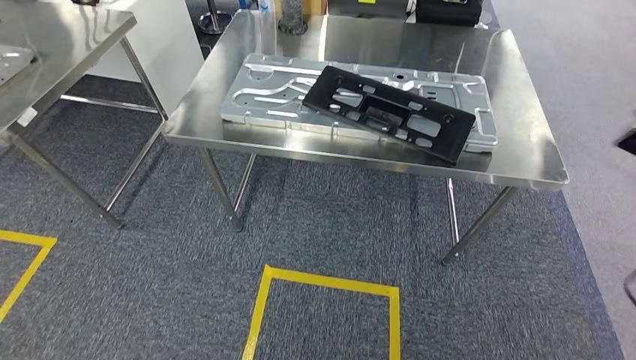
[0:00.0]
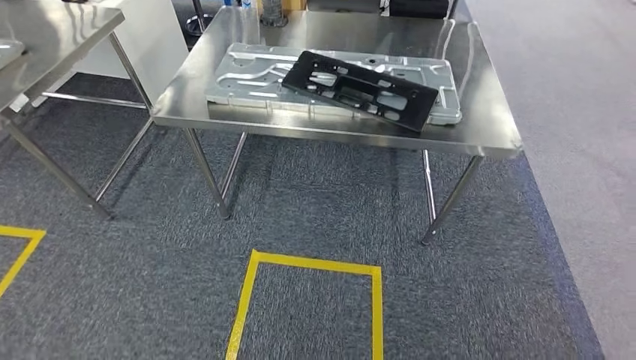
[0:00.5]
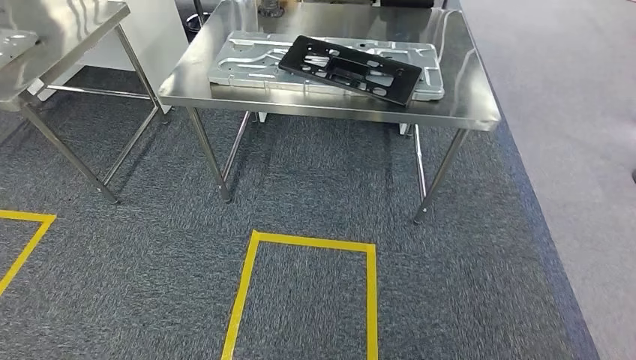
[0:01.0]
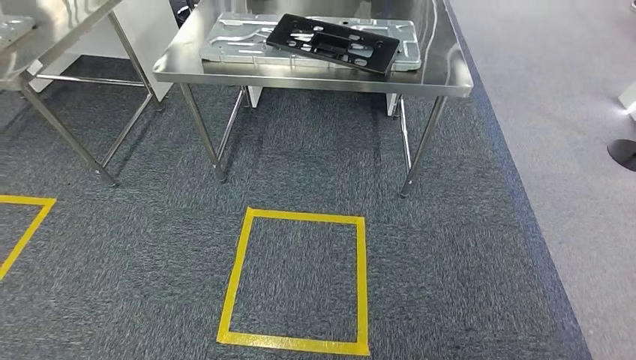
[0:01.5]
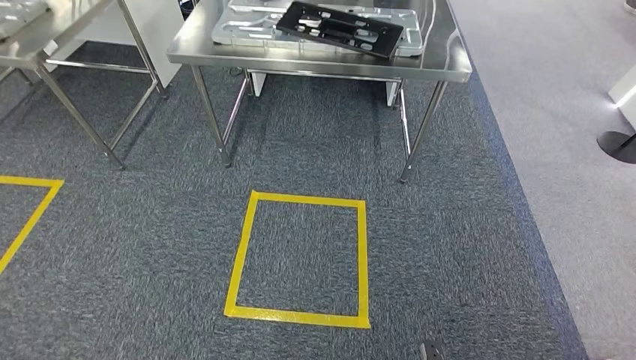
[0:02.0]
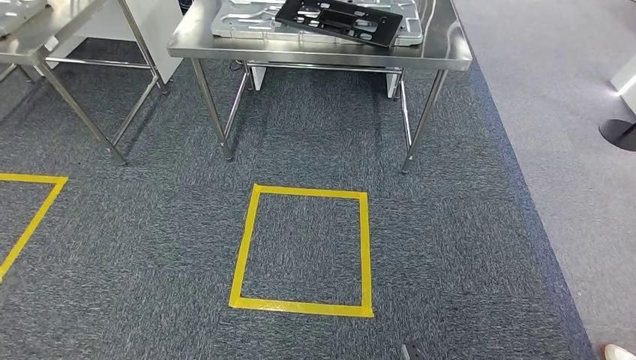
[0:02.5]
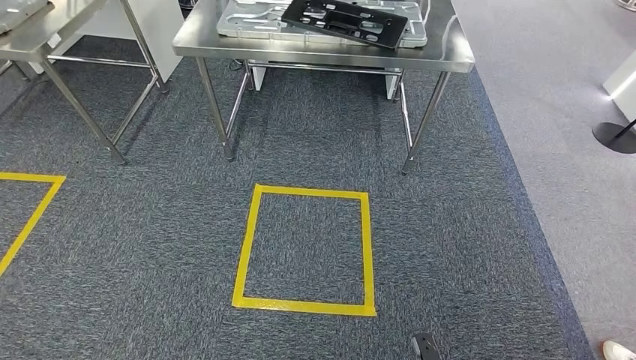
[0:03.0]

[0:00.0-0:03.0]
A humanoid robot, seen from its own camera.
Step, 0:01.5 to 0:03.0: Return to the initial position at the shelf.

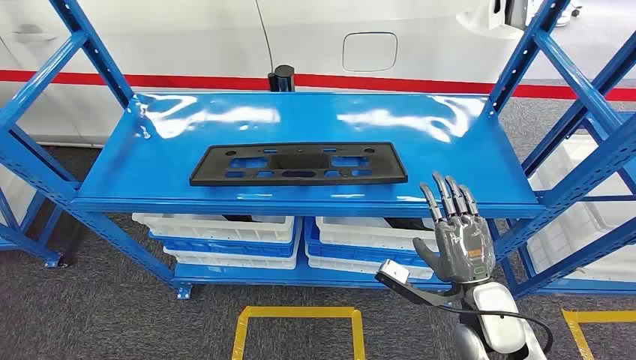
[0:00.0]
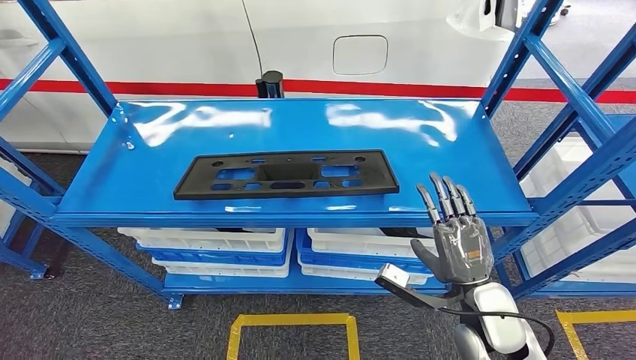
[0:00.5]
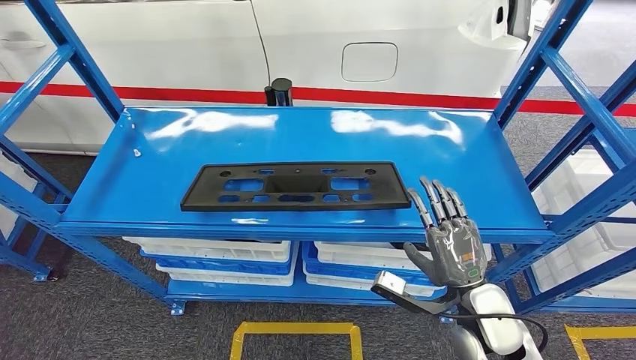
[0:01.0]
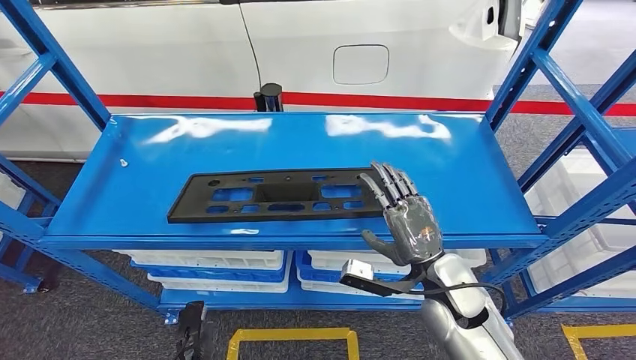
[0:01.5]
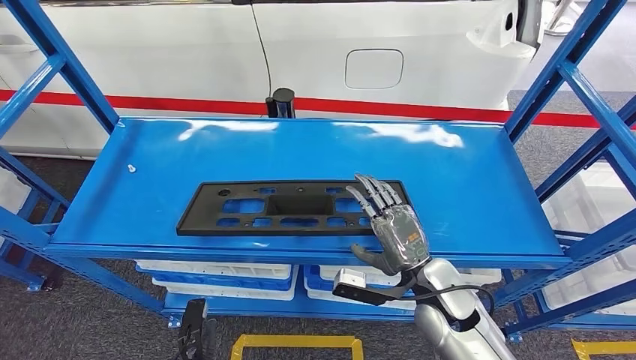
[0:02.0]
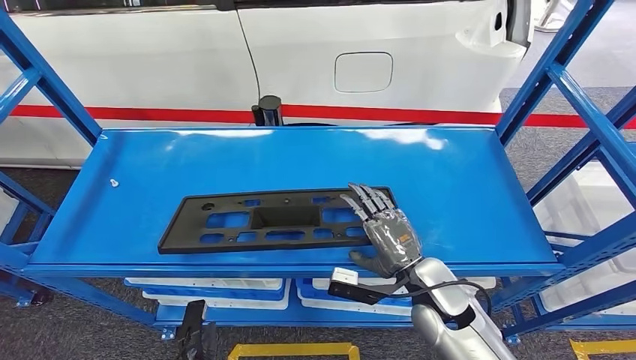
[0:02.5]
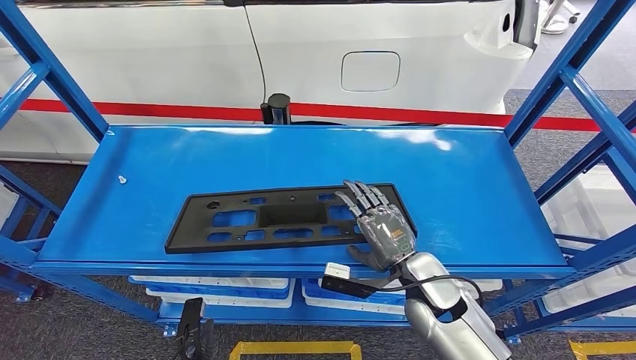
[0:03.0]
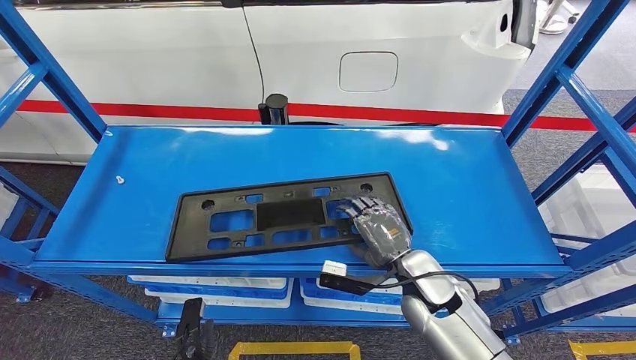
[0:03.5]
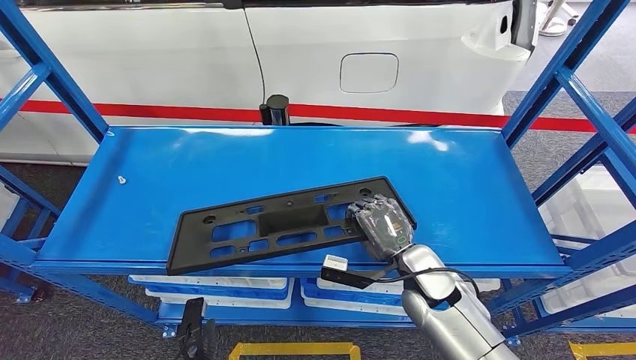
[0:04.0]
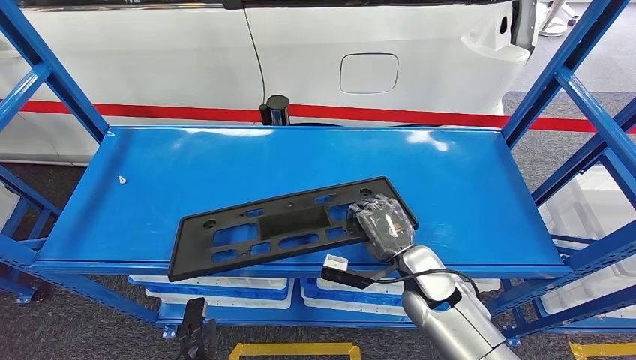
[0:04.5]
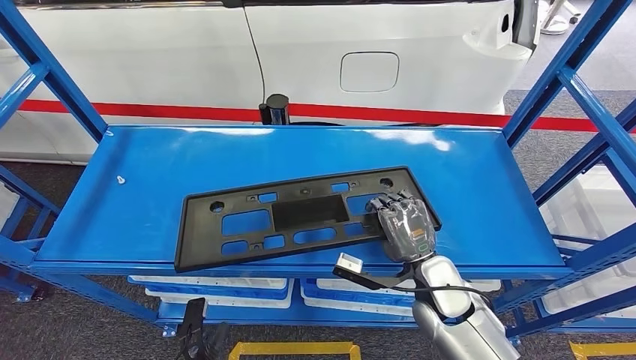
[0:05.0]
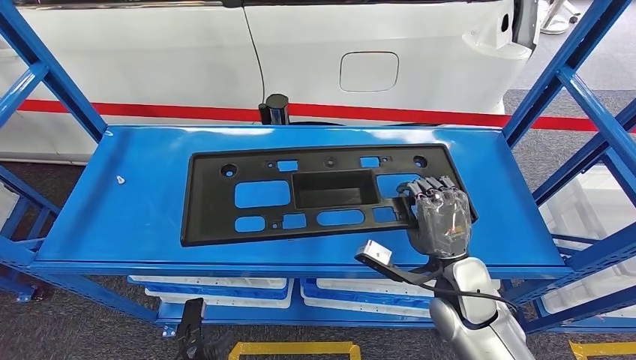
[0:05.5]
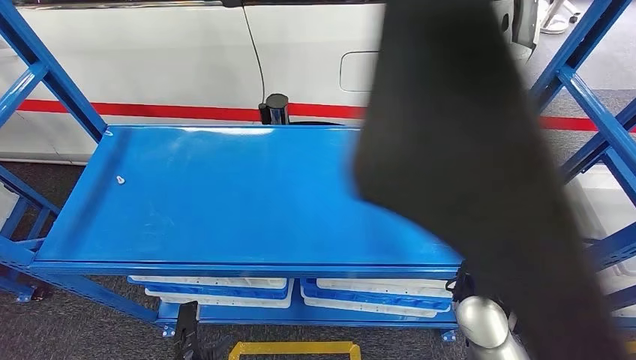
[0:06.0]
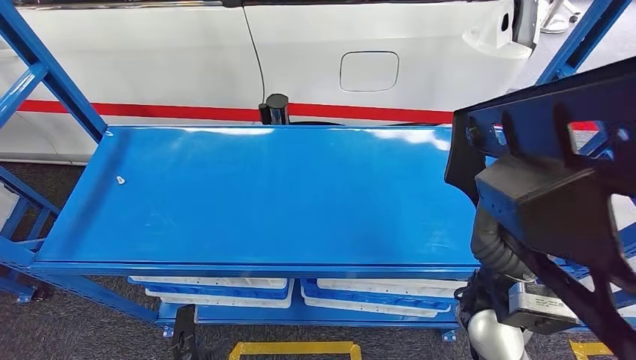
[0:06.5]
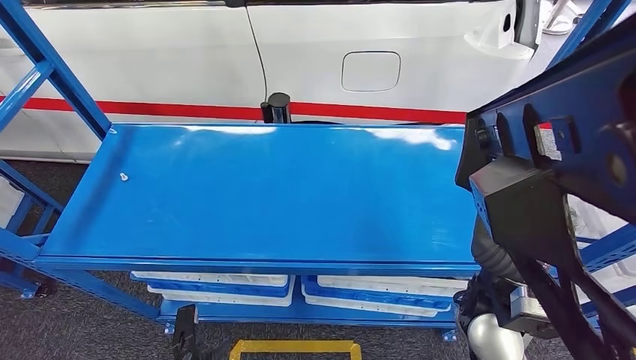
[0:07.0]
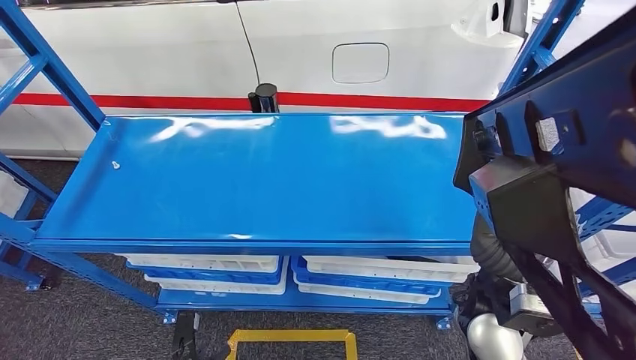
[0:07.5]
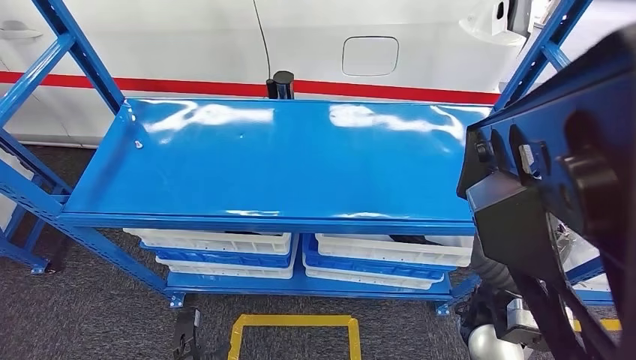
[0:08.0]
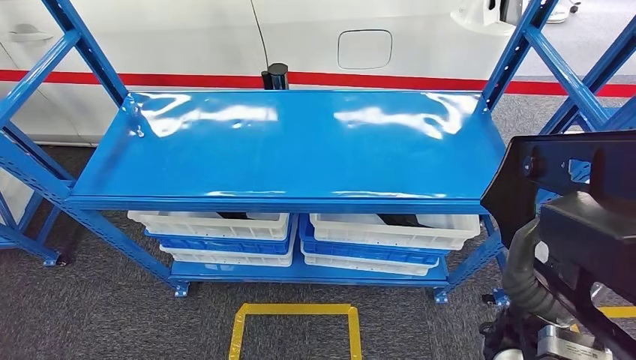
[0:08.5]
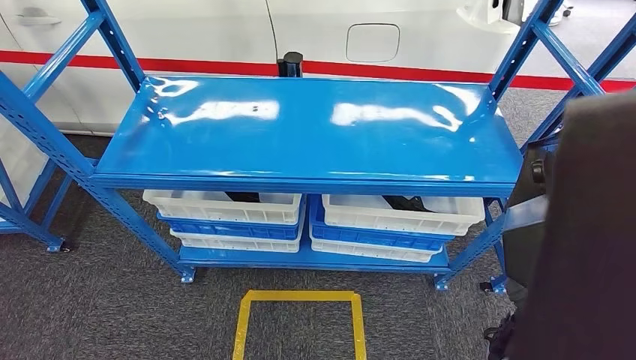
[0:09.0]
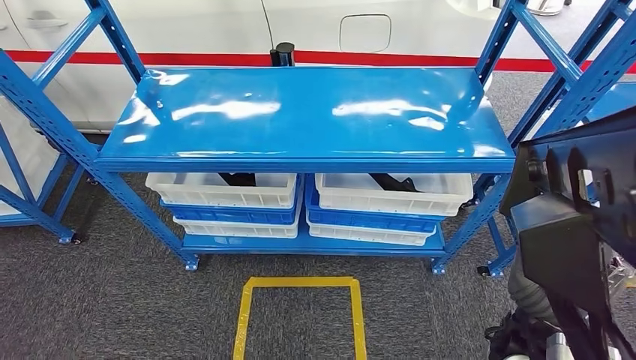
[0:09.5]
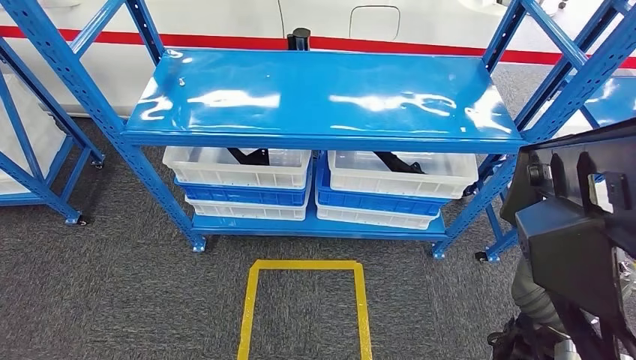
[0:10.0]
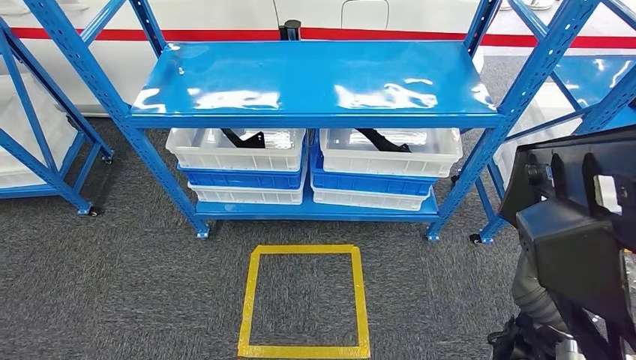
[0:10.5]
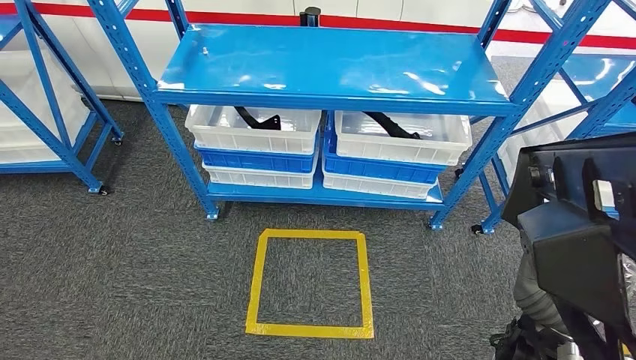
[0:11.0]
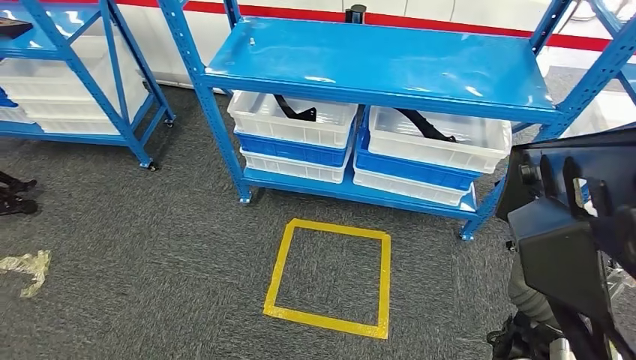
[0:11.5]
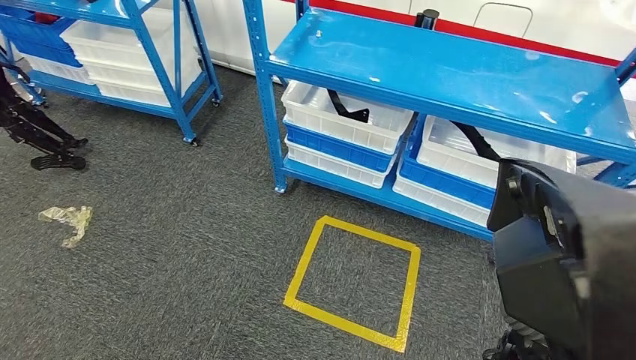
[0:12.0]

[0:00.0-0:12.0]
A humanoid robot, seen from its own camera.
Step, 0:00.0 to 0:09.5: Pick up the large material from the shelf.

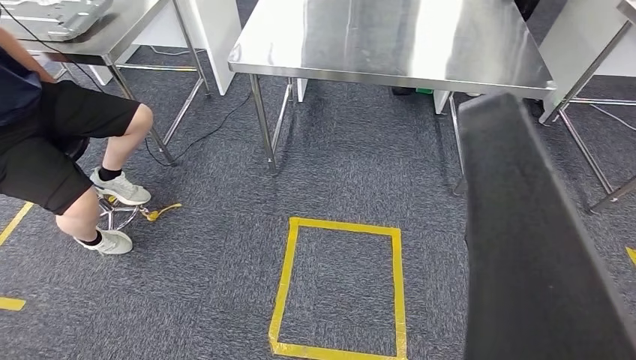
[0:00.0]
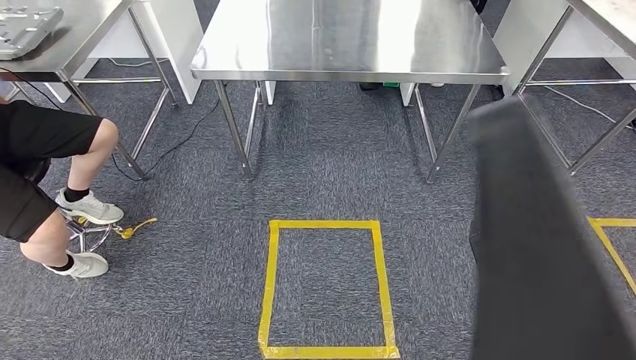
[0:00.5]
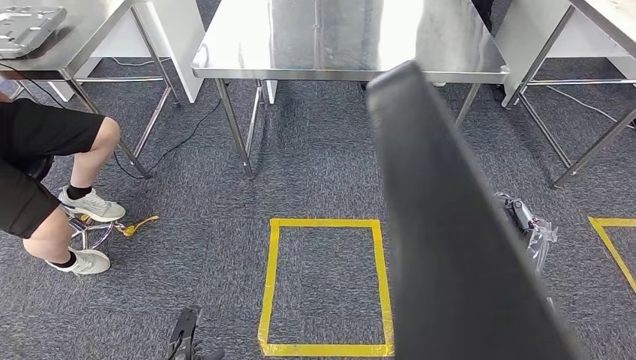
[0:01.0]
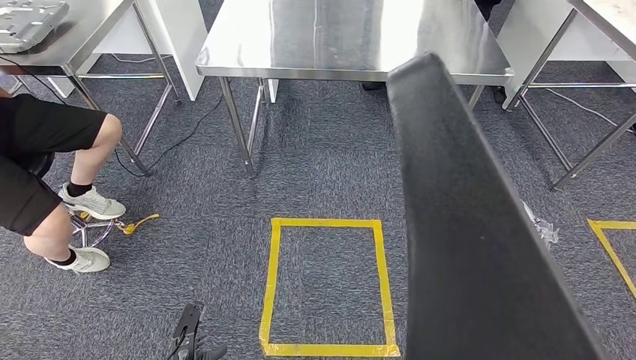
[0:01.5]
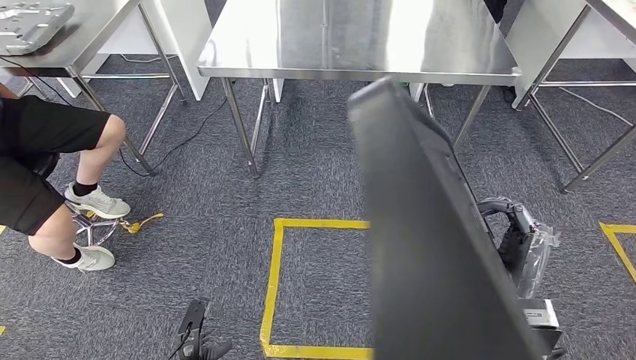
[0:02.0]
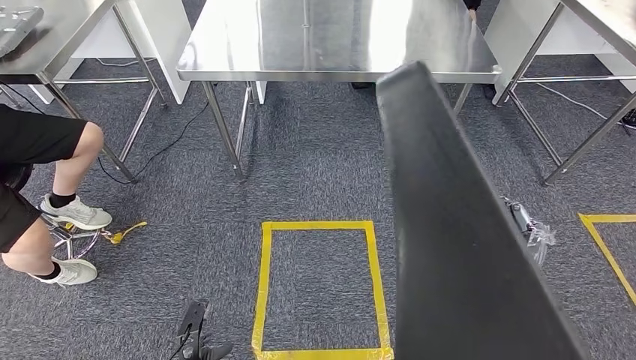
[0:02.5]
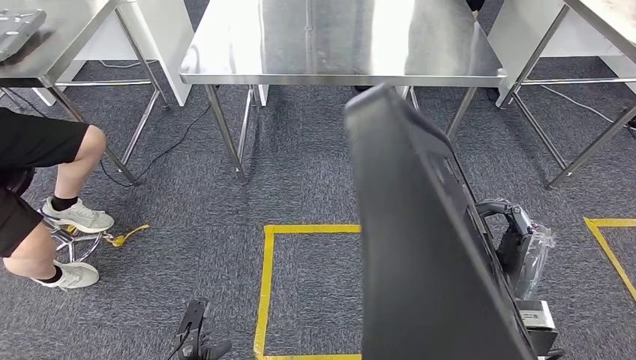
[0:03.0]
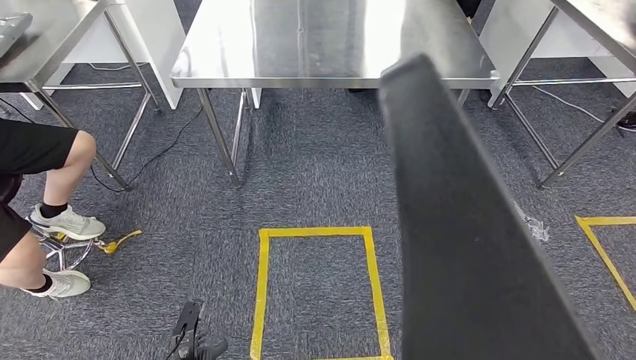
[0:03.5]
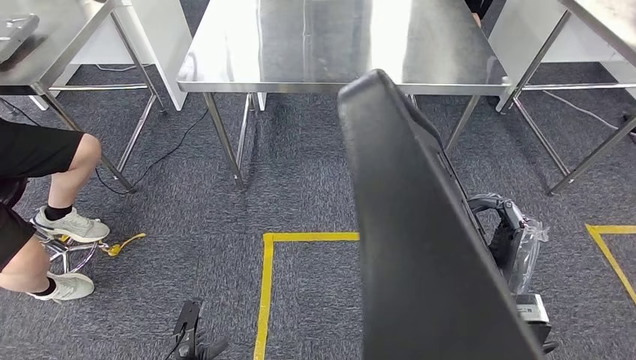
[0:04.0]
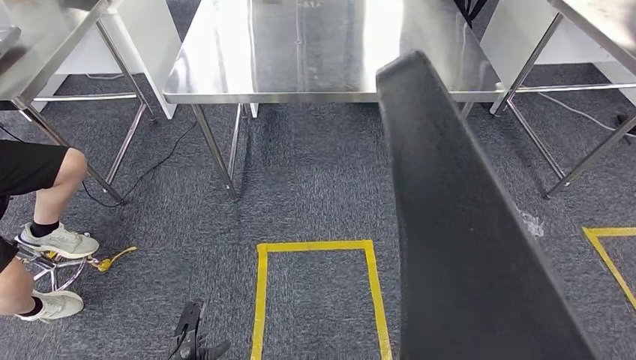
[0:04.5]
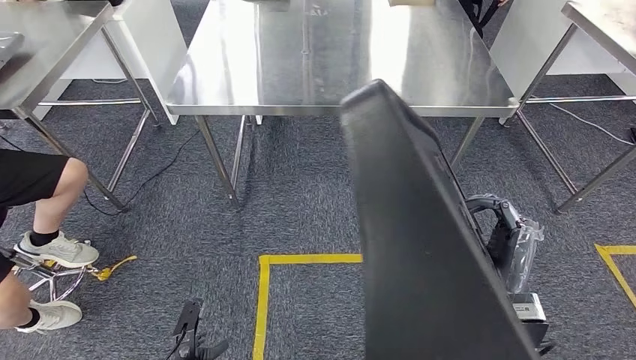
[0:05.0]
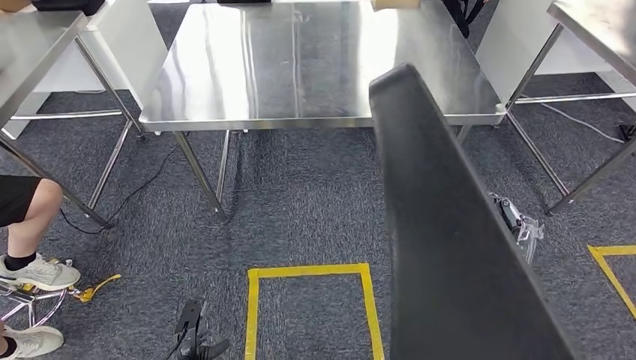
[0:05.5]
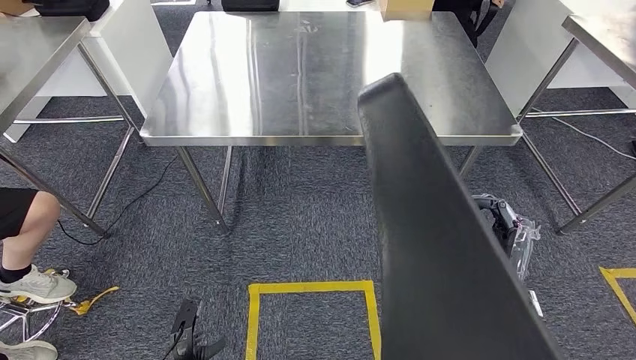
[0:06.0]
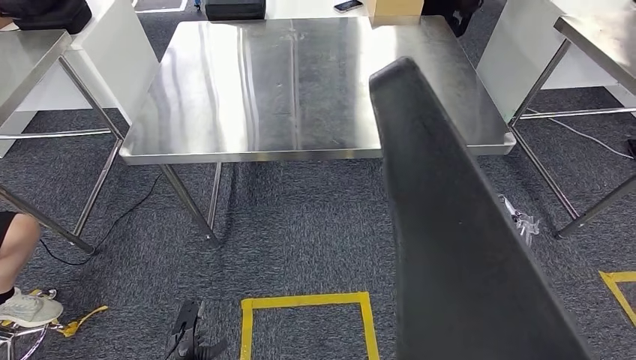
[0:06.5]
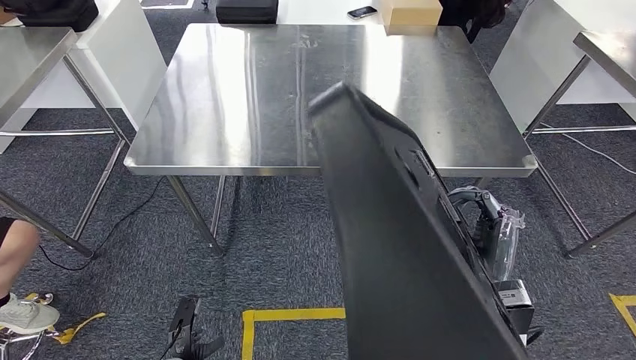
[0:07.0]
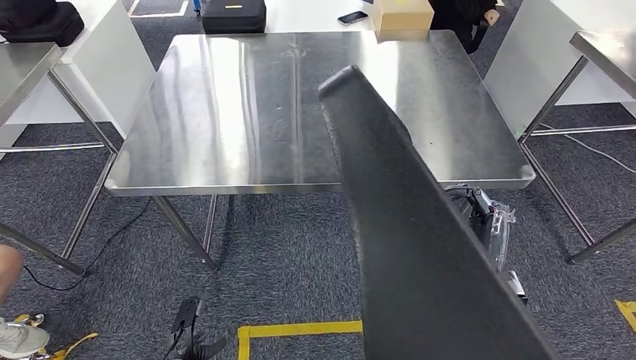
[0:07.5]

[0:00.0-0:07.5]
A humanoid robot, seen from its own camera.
Step, 0:00.0 to 0:04.5: Move the large material to the workbench.
